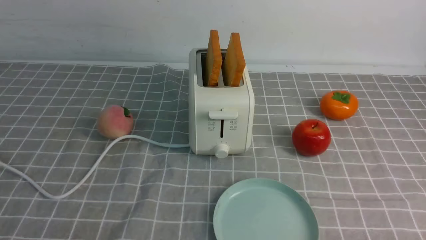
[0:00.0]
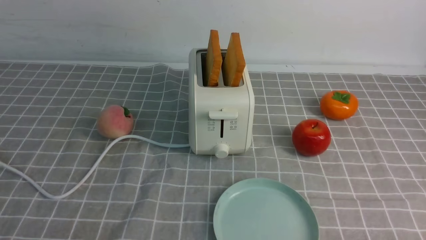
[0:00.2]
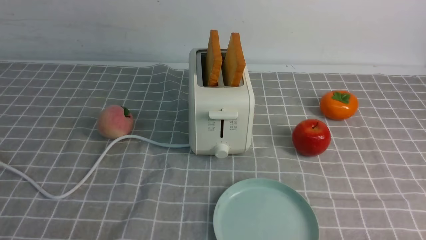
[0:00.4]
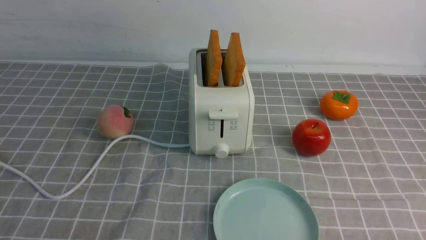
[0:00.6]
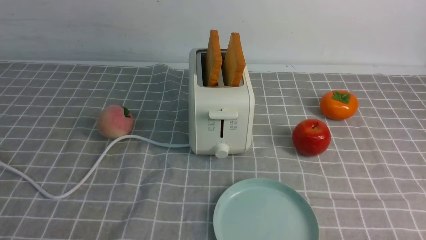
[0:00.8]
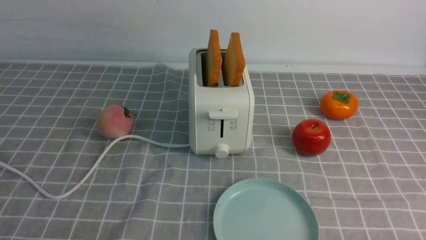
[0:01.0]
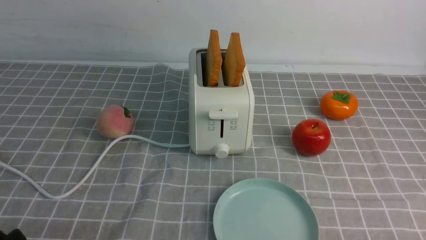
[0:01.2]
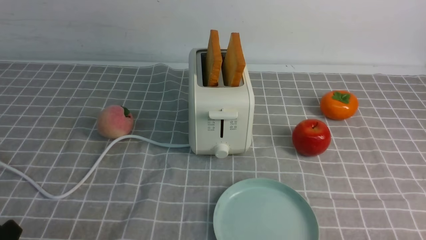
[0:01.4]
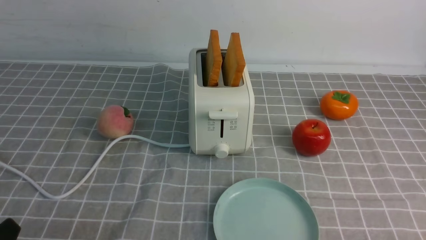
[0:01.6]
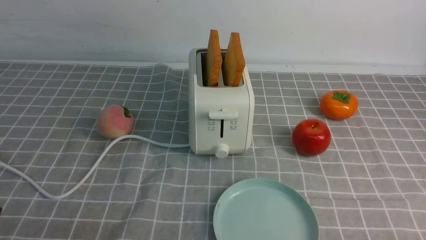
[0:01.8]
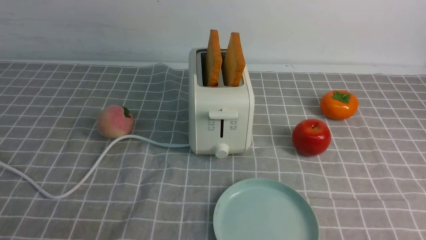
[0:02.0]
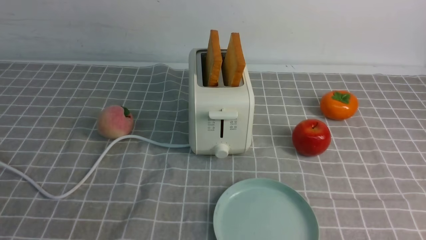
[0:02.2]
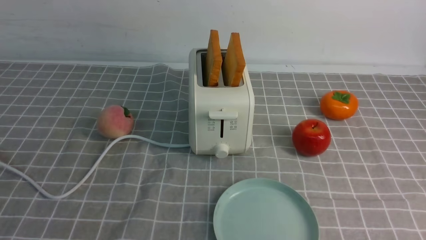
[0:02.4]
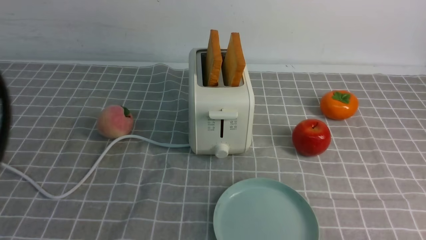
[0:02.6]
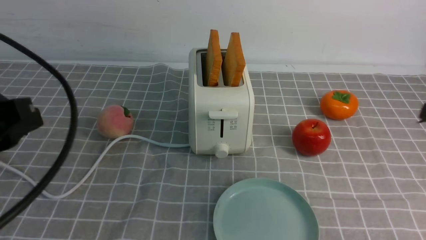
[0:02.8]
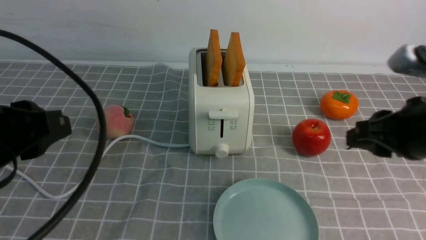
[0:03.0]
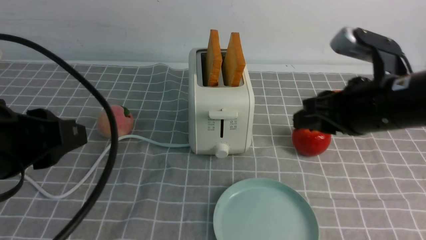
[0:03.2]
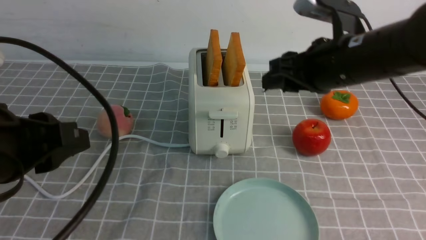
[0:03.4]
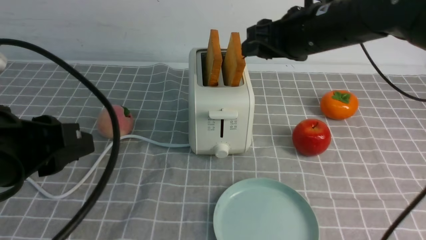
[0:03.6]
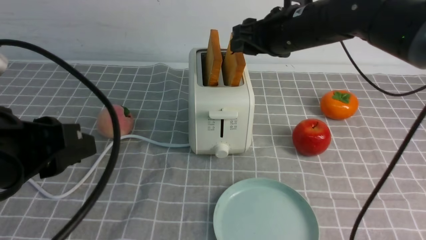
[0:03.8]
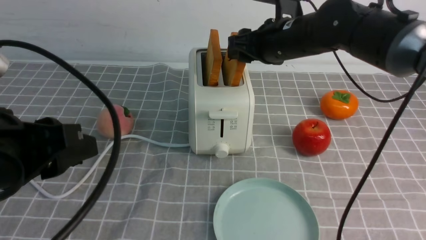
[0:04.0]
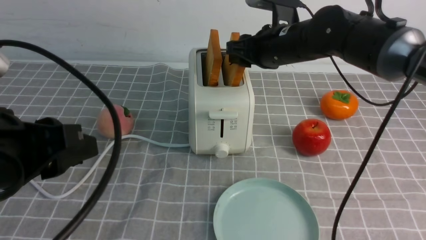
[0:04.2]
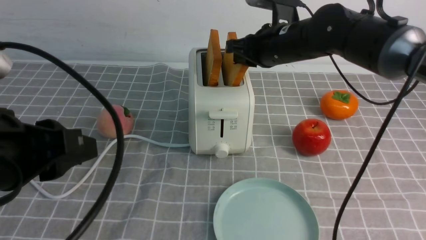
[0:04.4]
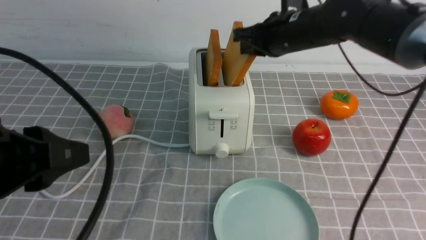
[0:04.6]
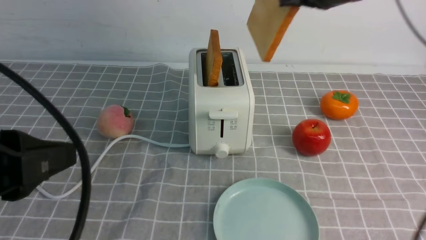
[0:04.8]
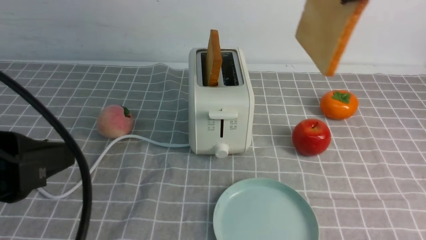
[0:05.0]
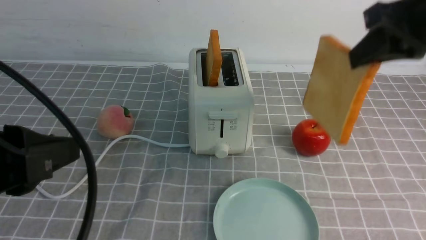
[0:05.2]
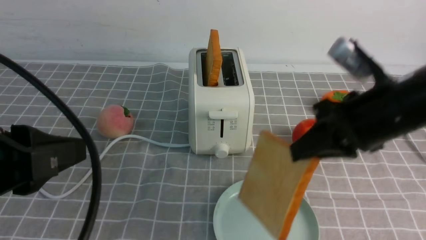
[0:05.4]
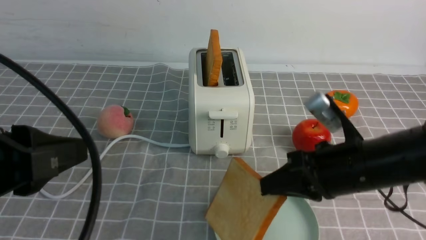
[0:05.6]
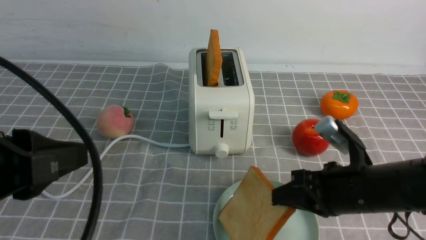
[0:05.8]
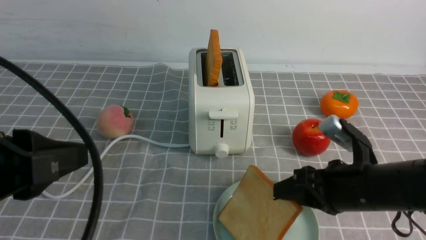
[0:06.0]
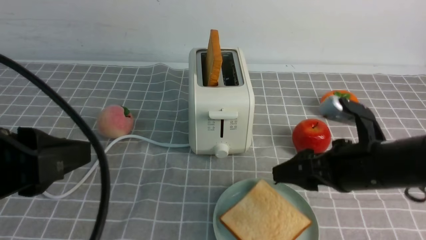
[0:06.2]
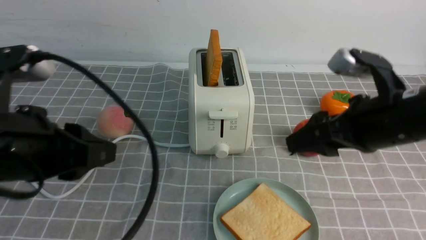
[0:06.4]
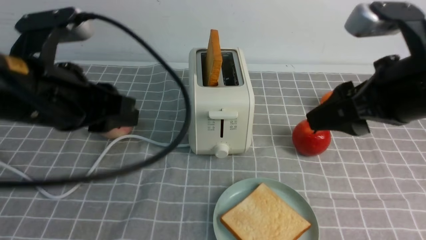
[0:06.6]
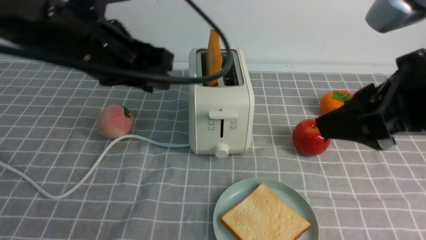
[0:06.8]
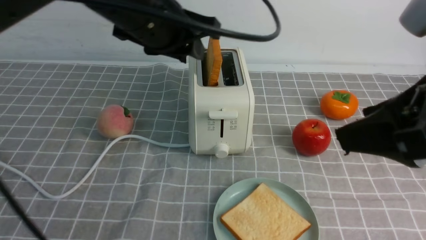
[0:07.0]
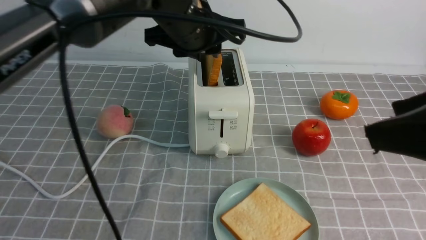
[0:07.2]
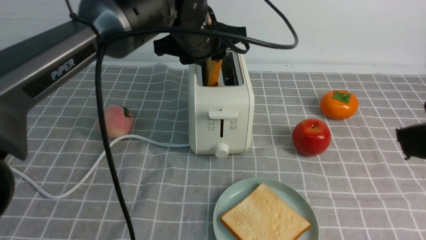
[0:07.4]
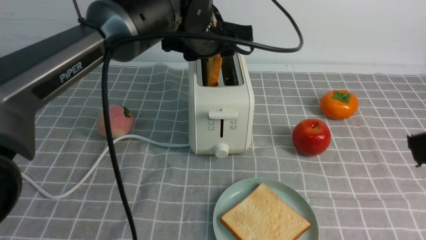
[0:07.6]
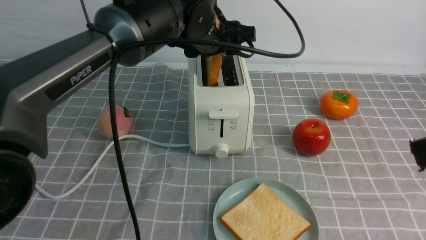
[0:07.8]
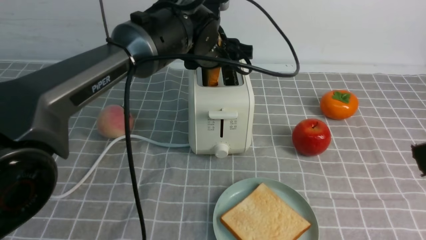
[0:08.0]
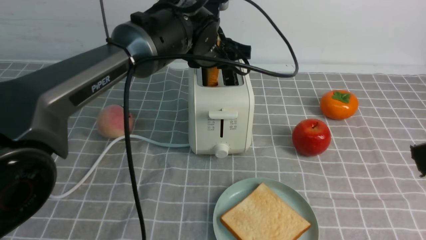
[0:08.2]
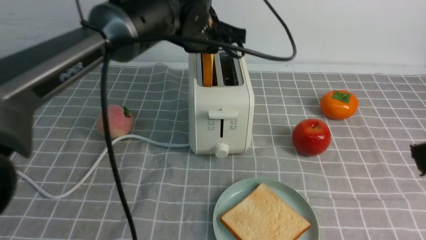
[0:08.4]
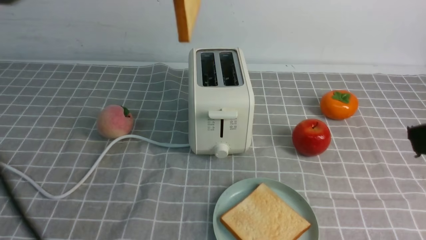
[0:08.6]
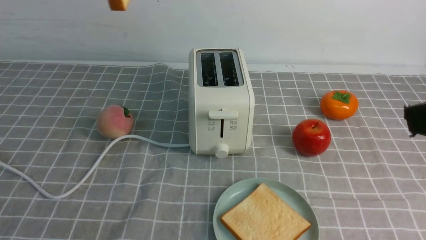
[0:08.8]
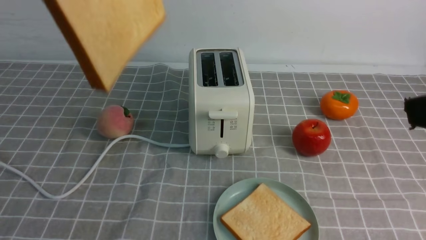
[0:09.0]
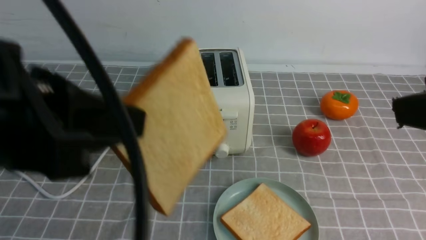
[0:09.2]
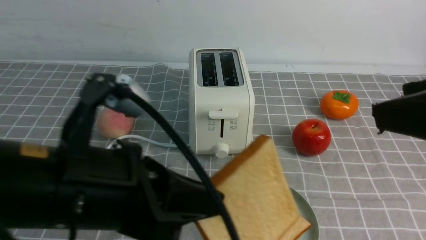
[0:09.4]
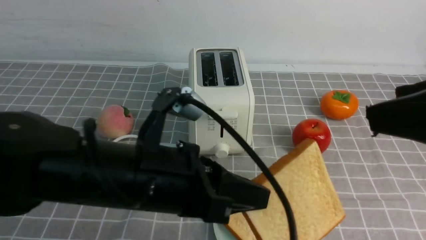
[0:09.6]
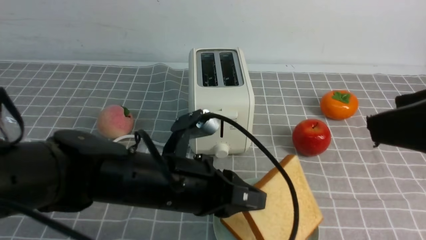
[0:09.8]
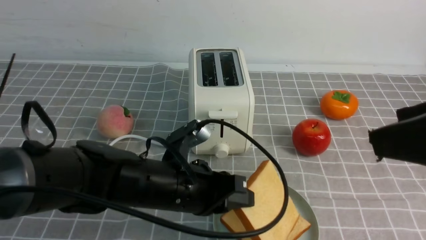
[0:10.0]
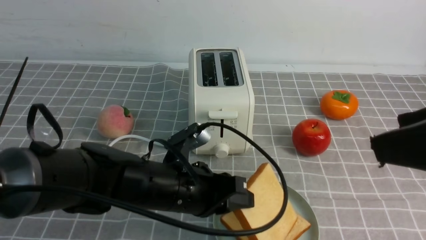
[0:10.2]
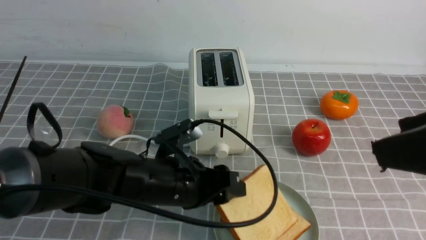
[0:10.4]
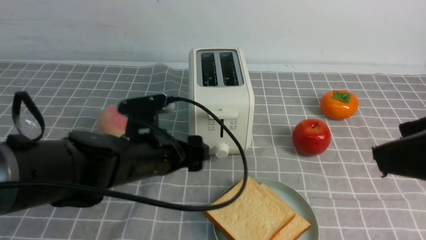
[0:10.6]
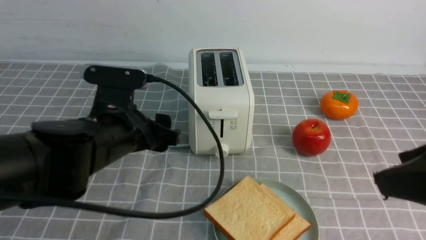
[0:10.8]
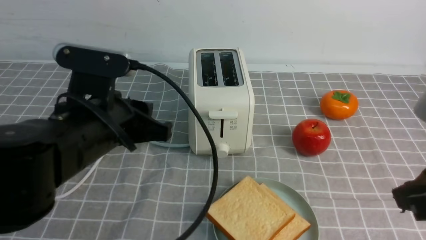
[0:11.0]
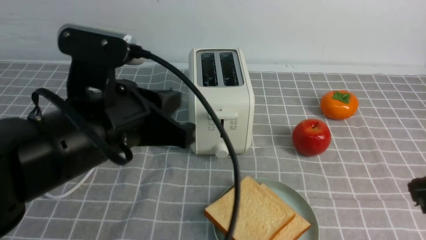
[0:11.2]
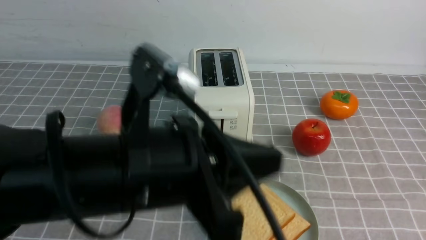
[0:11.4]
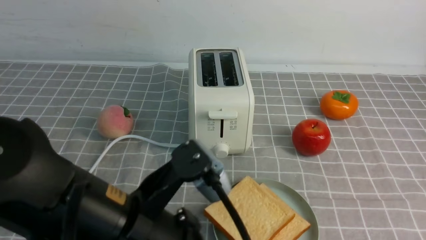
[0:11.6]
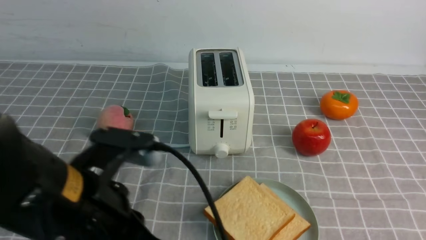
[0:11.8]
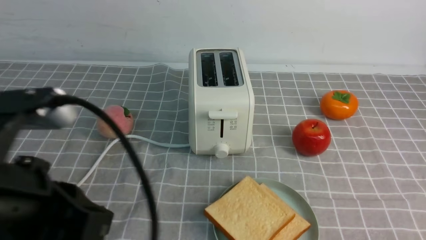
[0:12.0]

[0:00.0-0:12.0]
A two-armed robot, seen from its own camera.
Task of the whole recording: take toasted bread from bread machine on grey coffee table place on plate.
Step, 0:00.0 to 0:04.8: use the right arm to take out a slice of bread.
Step, 0:05.0 to 0:06.2: use the right arm to put a slice of bread into the plate.
Step, 0:06.4 to 0:08.6: use the left arm to take out a slice of bread.
Step, 0:08.8 to 0:10.6: use the left arm to put a slice of bread into the empty plate.
0:01.6 to 0:03.0: The right gripper shifts some 20 cm forward and upward. Meanwhile the left gripper shifts about 20 cm upward and forward.
0:03.0 to 0:04.4: The right gripper is displaced forward and to the left by about 25 cm, and opens and closes again.
0:04.4 to 0:06.0: The right gripper heads backward and downward, covering some 20 cm.
0:06.0 to 0:07.6: The left gripper goes some 35 cm forward and to the right. Meanwhile the right gripper travels upward and backward by roughly 25 cm, and opens.
0:07.6 to 0:09.0: The left gripper heads backward, upward and to the left, covering approximately 30 cm, and closes.
0:09.0 to 0:10.4: The left gripper shifts roughly 30 cm downward, and opens.
0:10.4 to 0:12.0: The right gripper heads downward, to the right and backward, covering approximately 15 cm, and closes up. The left gripper moves upward, backward and to the left, about 20 cm, and closes its fingers.

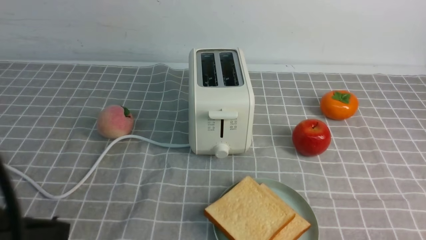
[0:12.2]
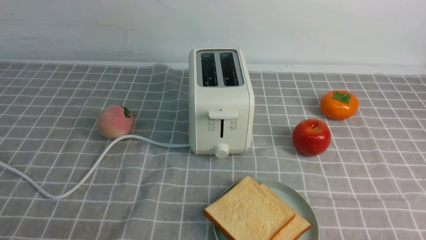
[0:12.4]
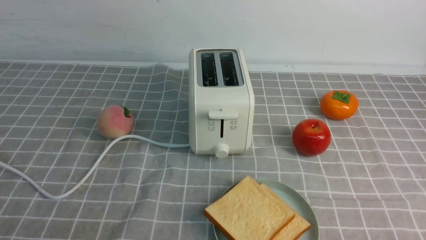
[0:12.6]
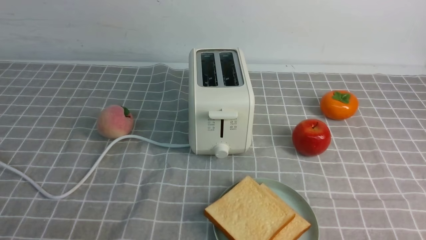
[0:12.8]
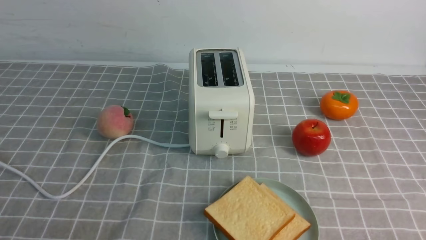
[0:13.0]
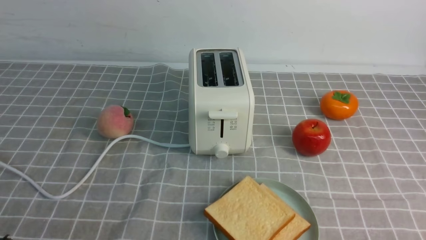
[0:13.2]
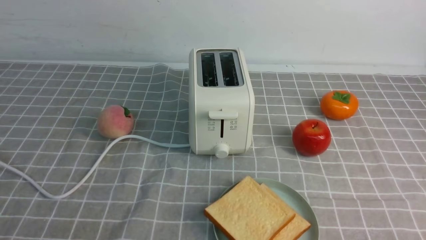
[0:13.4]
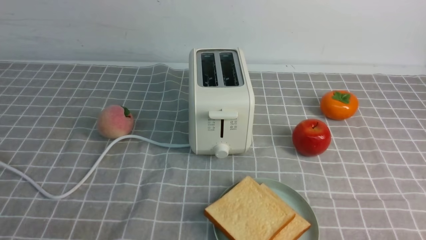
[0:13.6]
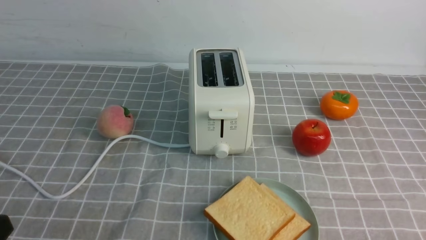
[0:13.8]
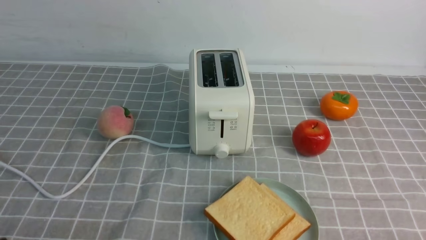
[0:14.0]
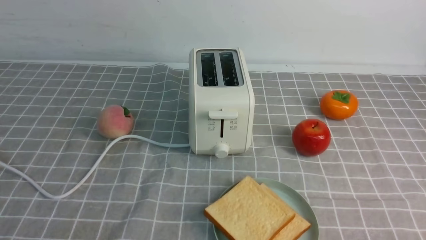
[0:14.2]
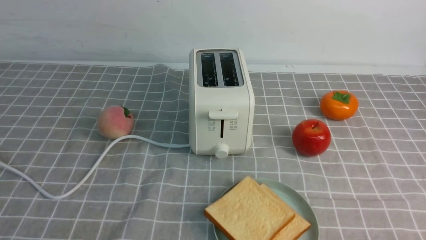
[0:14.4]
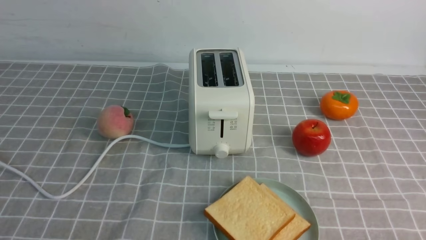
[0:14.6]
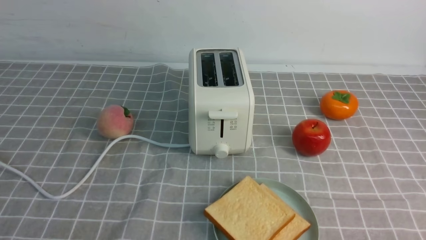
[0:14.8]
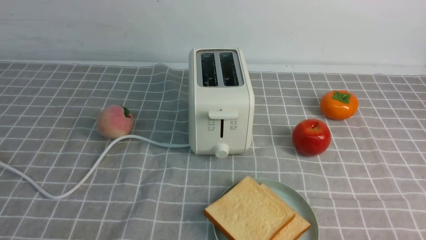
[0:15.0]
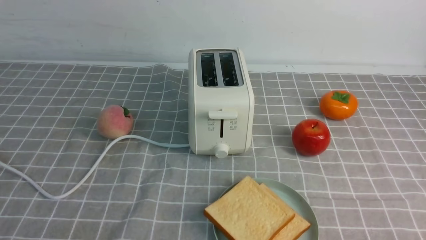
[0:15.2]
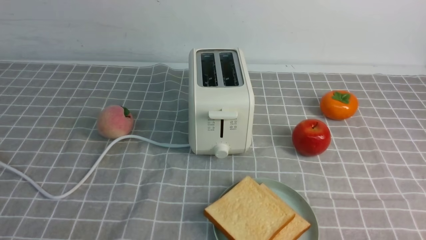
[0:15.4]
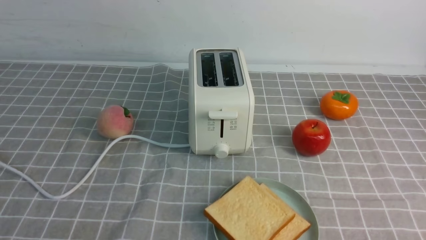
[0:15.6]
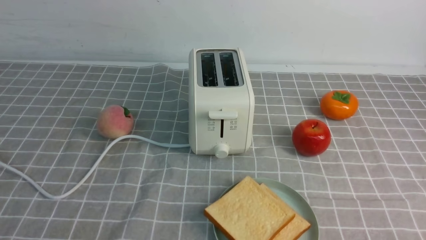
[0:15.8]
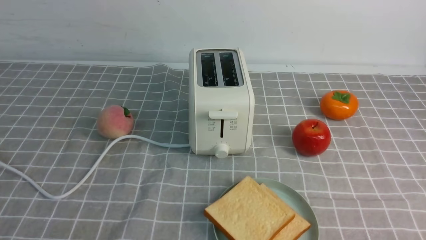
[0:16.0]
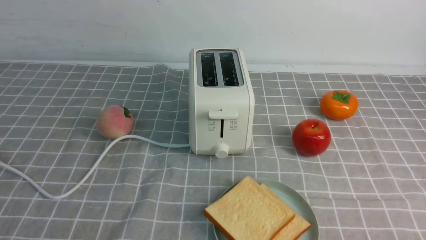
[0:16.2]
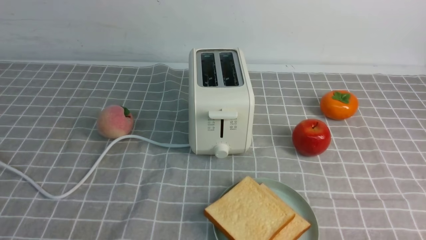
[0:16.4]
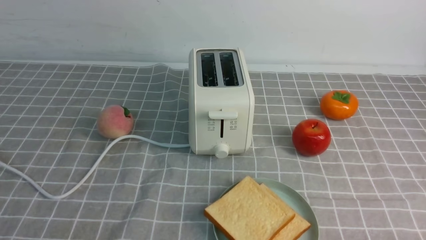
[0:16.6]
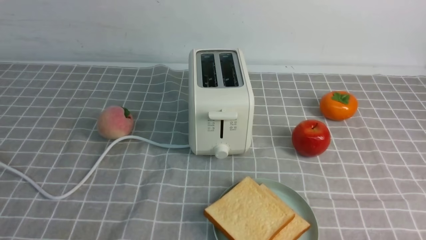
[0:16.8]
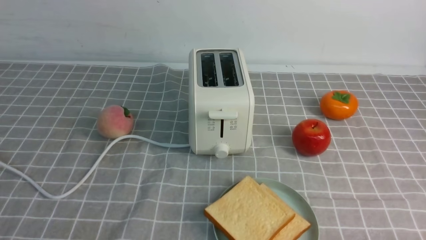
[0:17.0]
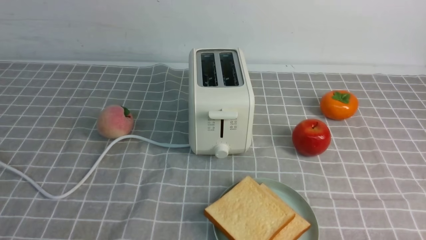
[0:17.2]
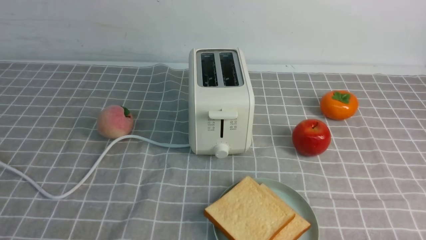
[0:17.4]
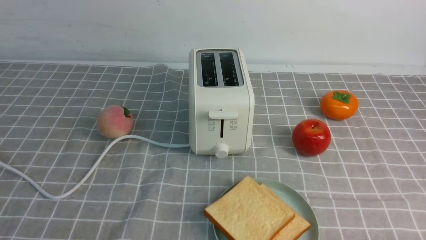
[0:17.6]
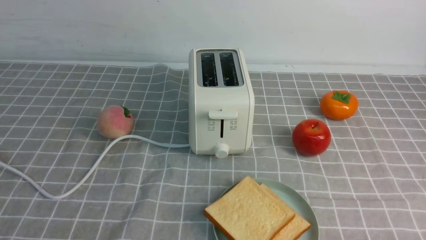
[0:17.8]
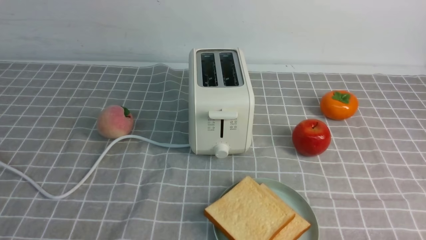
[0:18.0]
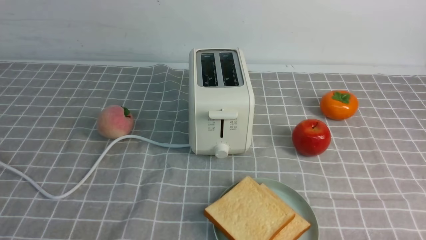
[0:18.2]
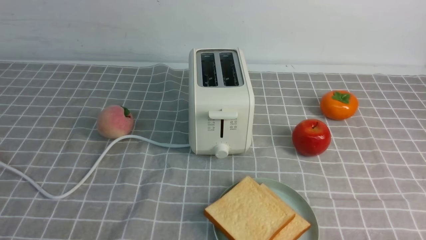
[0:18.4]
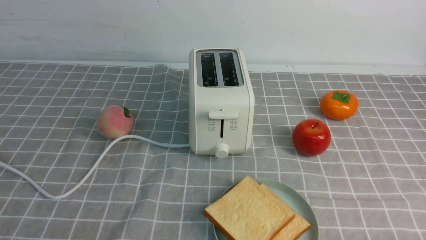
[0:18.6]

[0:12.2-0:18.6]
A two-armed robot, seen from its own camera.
Task of the whole recording: take toasted bread from bread machine on grey coffee table place on plate.
0:12.2 to 0:13.8: The left gripper is displaced downward and to the left by approximately 10 cm.
0:17.0 to 0:18.6: Both grippers stay about where they are.
